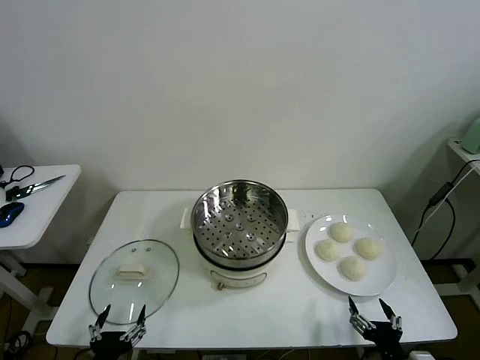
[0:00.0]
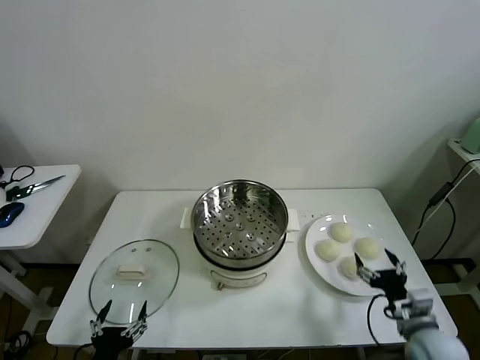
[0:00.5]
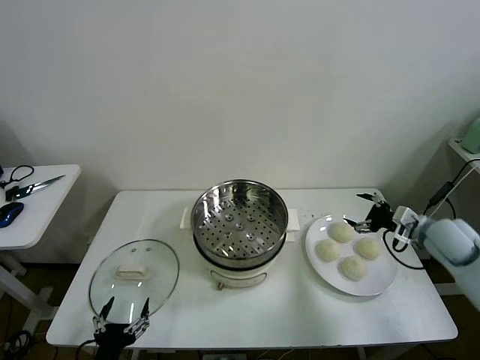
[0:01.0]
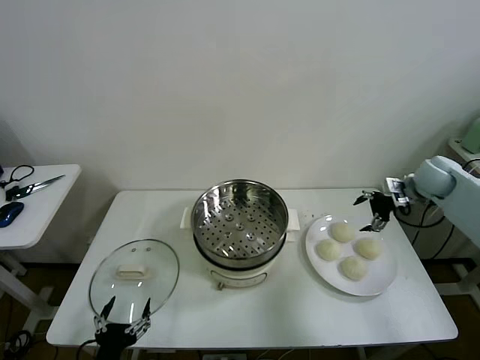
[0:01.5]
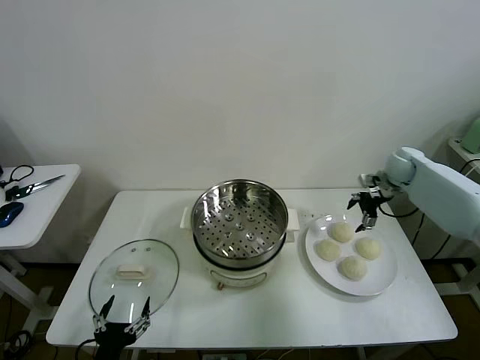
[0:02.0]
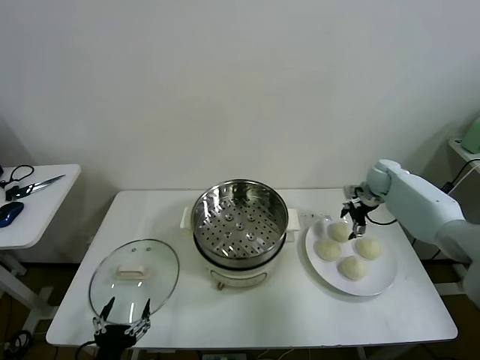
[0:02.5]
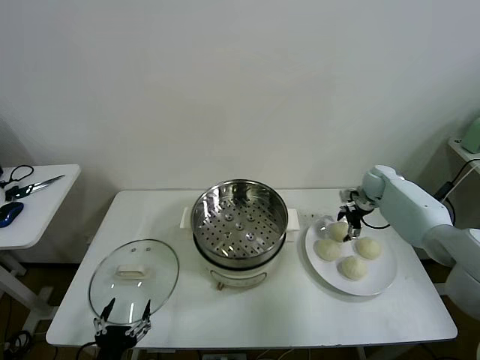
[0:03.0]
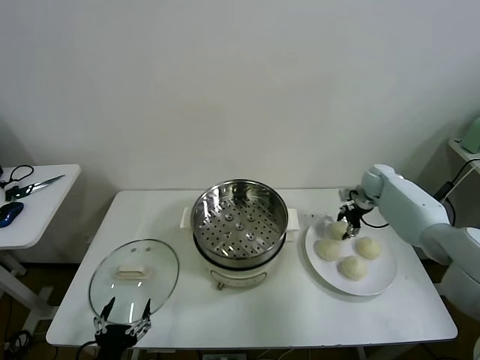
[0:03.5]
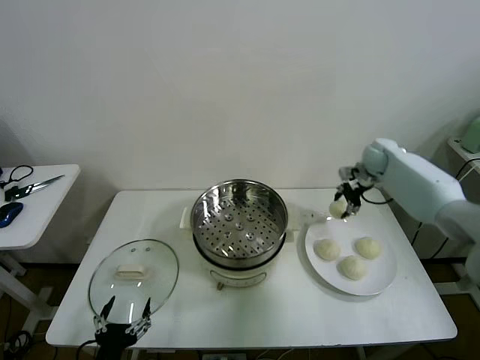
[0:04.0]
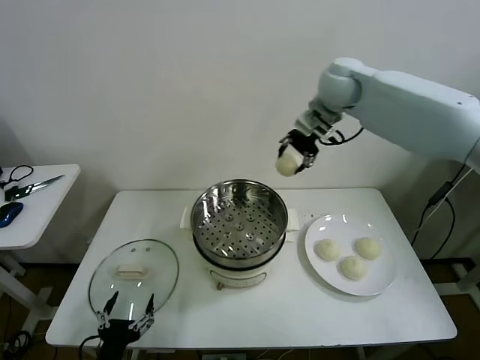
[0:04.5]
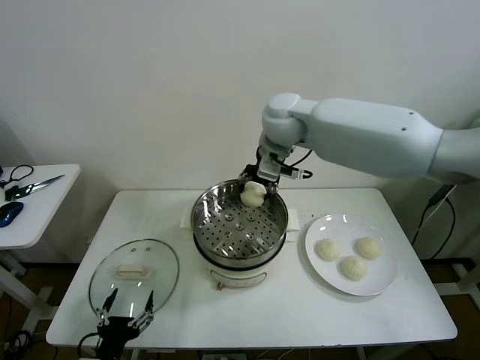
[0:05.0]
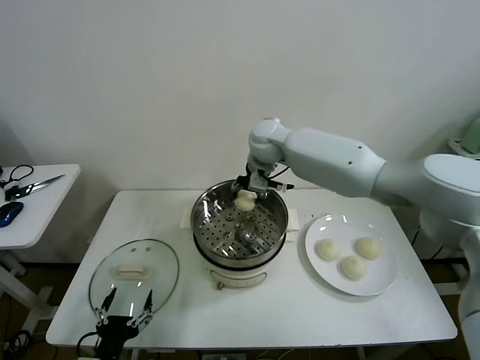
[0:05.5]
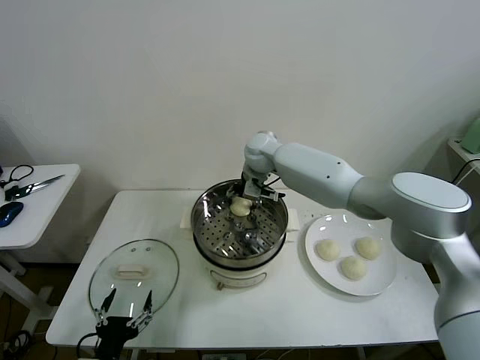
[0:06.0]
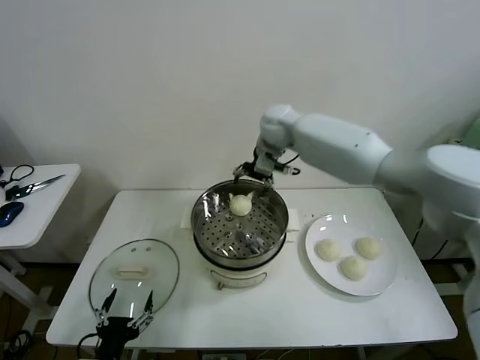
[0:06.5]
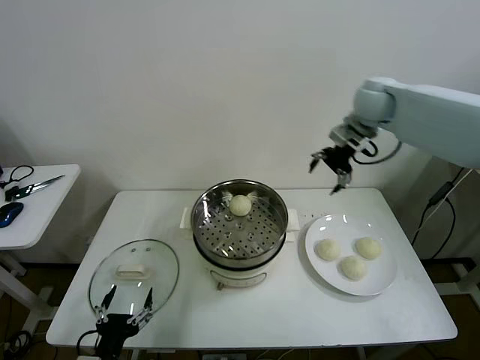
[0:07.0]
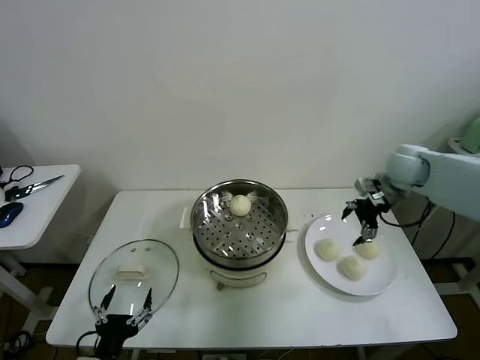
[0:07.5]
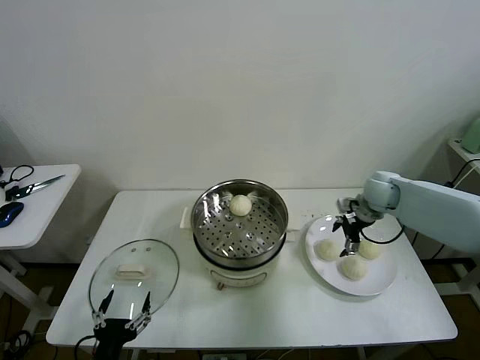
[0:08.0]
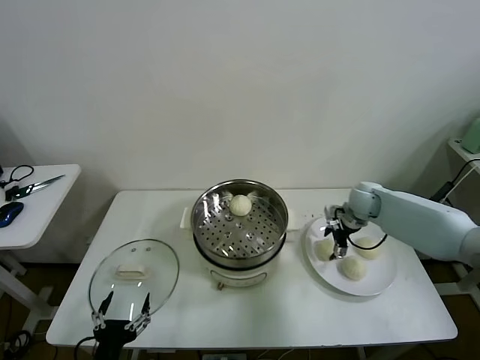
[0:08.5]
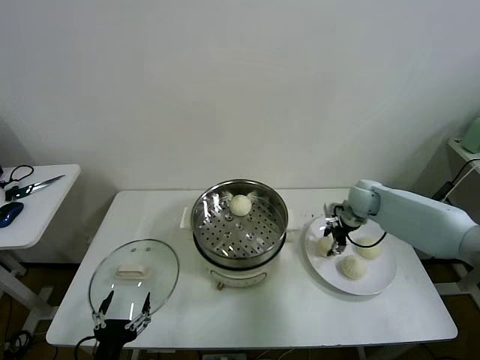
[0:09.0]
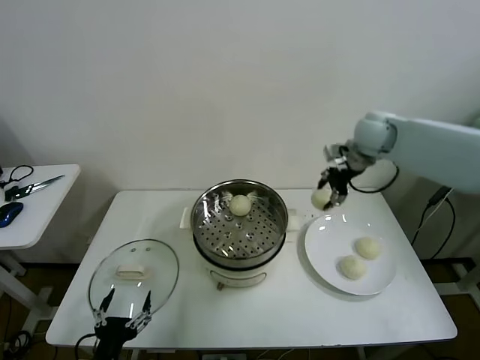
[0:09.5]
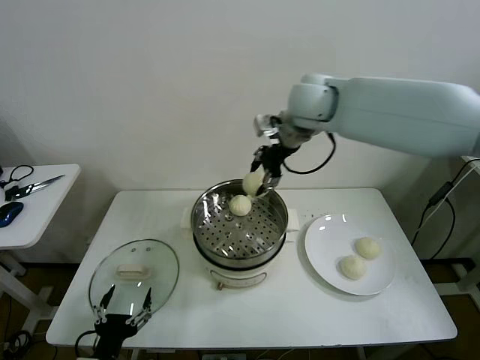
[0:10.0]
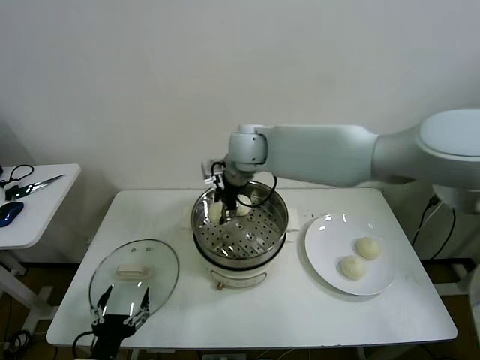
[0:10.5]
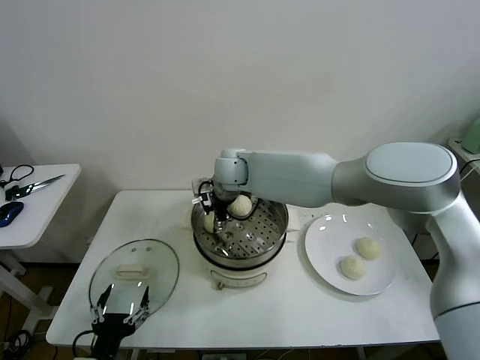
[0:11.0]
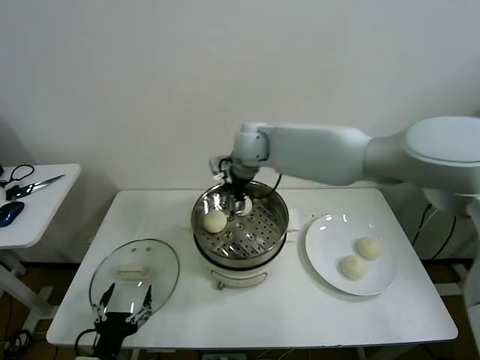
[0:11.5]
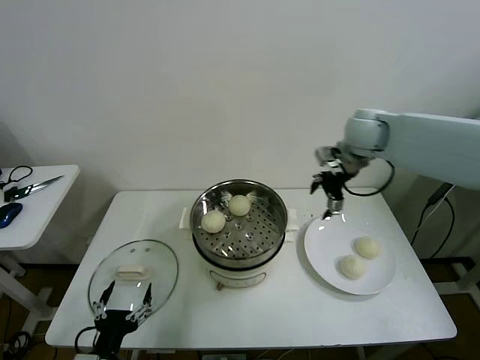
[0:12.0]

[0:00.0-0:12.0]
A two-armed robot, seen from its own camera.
Task of the whole recording: take steamed baozi put them in steamer then cover it.
Step, 0:00.0 to 0:03.0: Grasp the baozi in the plate with right gripper.
Step, 0:03.5 to 0:06.0: Place the baozi on the steamer with right gripper.
Step, 0:06.5 to 0:08.5: Grasp the baozi in the plate with right gripper.
Step, 0:09.0 to 0:11.0: Place the baozi on the steamer with right gripper.
0:02.0 to 0:04.0: The right gripper goes some 10 cm upward and to the left, and closes up.
0:04.0 to 0:06.0: The right gripper heads to the left, covering approximately 30 cm, and opens up.
0:06.0 to 0:08.0: The right gripper moves to the right, about 30 cm.
0:08.0 to 0:10.0: The right gripper shifts roughly 35 cm to the left and upward, and closes.
0:10.0 to 0:12.0: The right gripper is displaced to the right by approximately 20 cm, and opens its fingers.

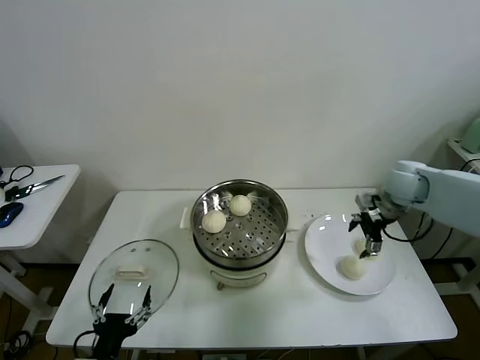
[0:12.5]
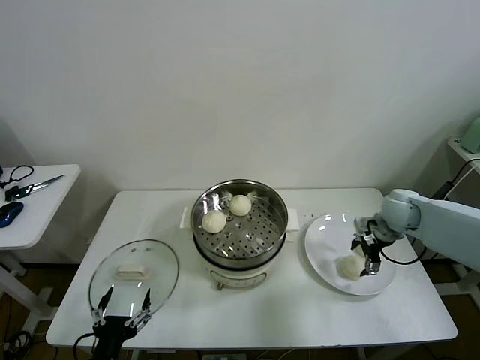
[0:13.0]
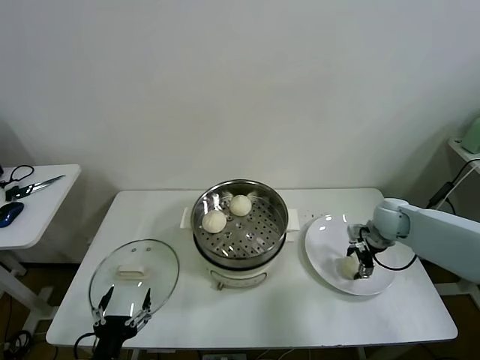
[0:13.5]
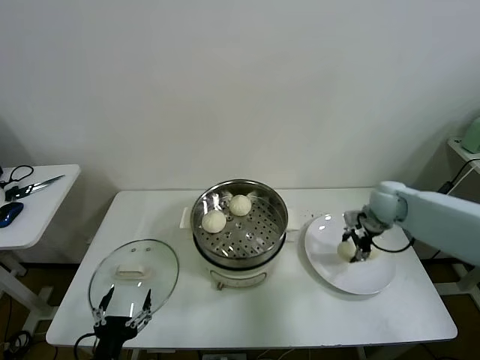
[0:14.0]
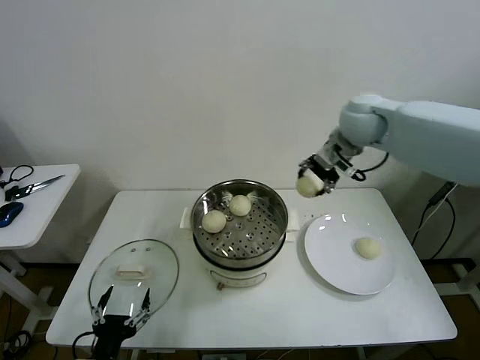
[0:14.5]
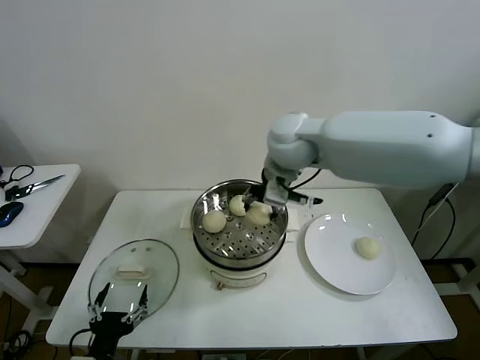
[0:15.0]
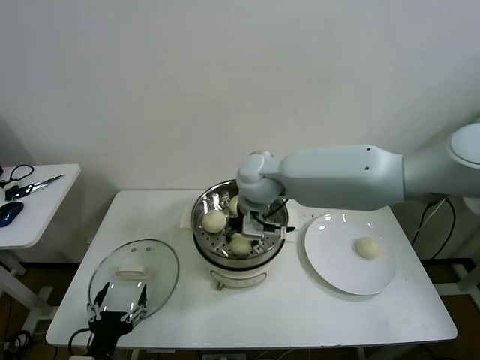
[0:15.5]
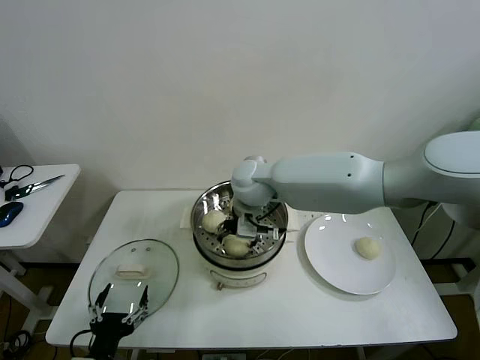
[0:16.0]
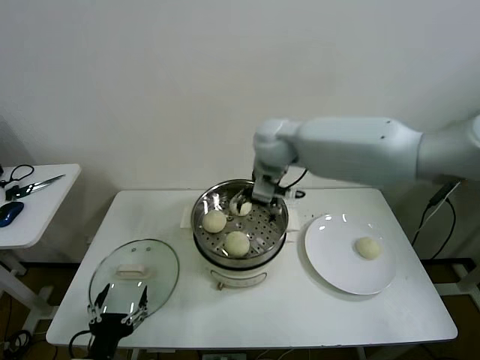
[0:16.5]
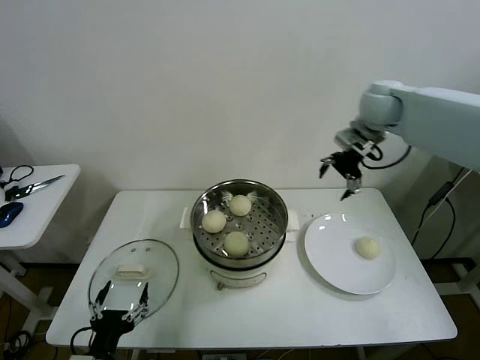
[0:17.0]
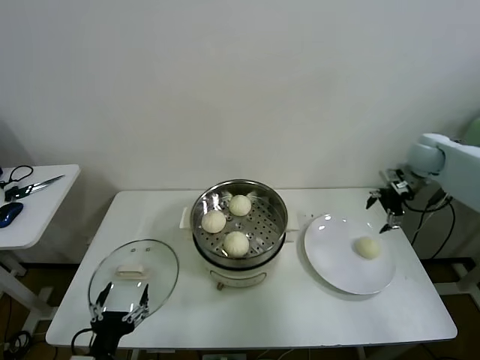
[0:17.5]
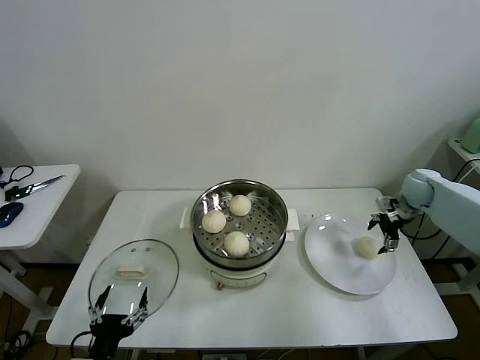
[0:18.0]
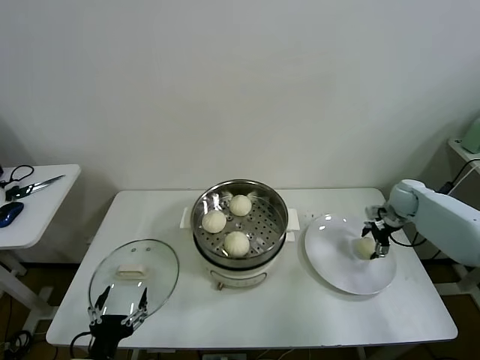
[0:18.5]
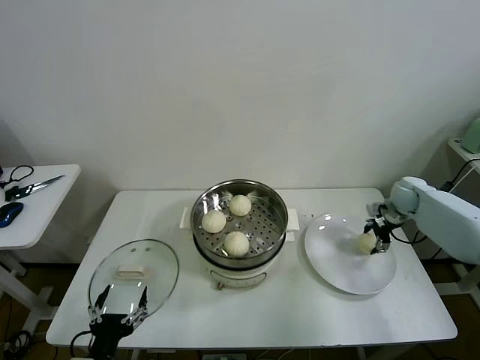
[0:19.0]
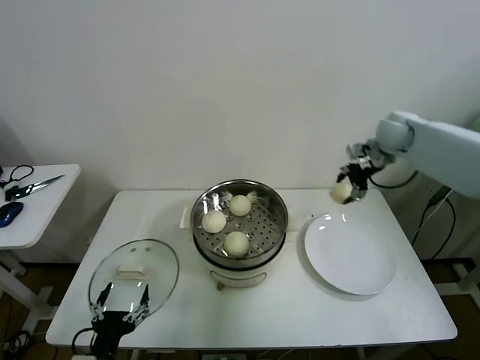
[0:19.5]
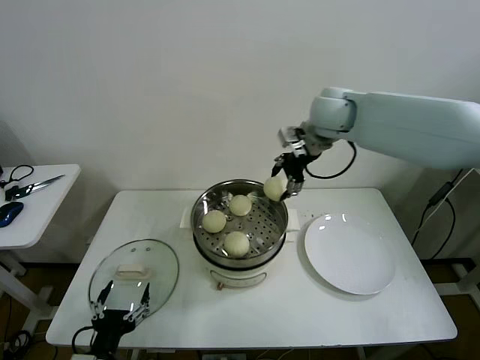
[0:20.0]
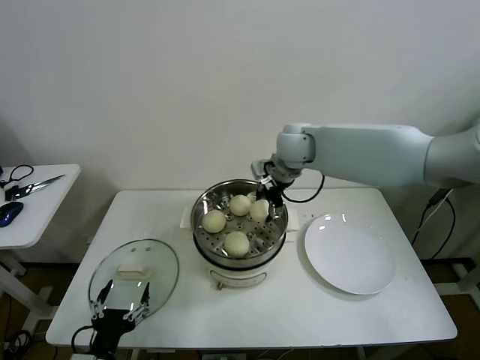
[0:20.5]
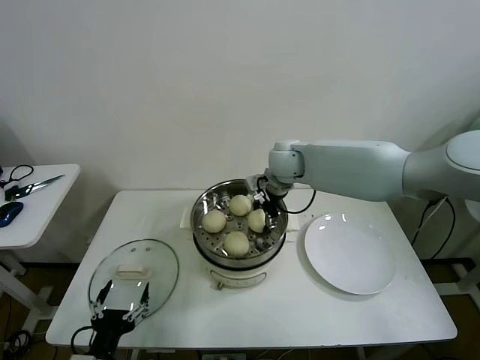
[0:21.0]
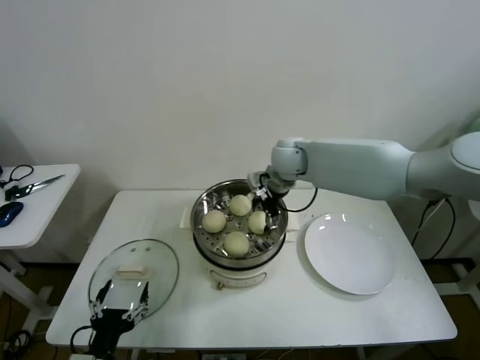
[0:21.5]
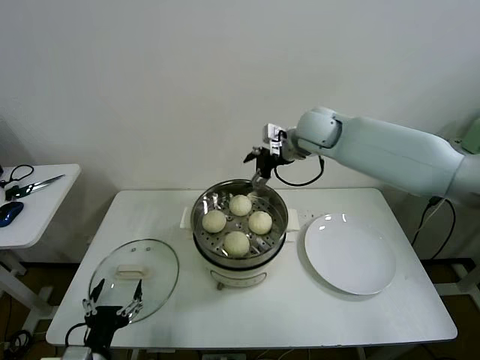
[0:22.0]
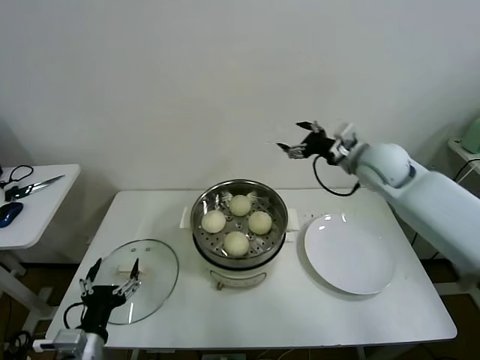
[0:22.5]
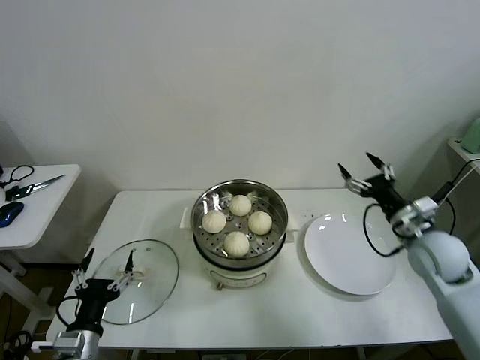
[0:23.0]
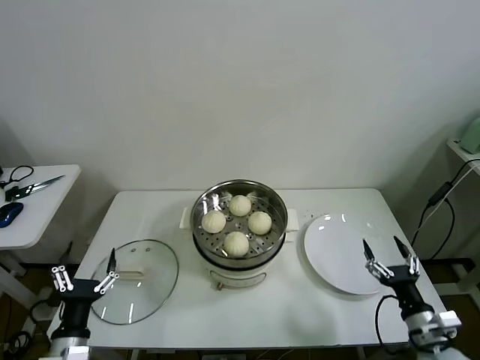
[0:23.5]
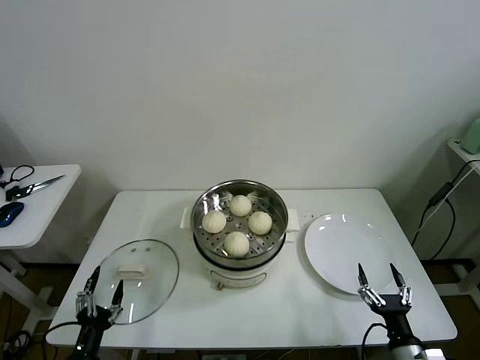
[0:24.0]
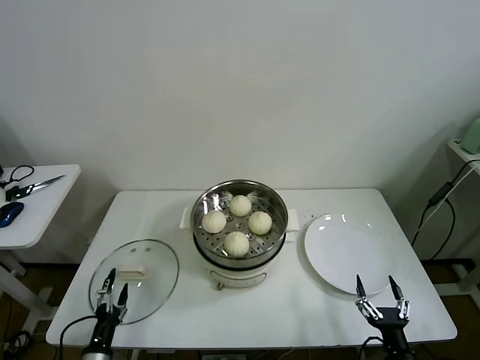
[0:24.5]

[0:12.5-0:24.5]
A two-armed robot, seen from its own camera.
Task of the whole recording: take steamed baozi put them in steamer then cover it.
Step, 0:14.0 to 0:15.5: Place the baozi on the steamer with right gripper.
Step, 0:16.0 to 0:18.5: Grasp the baozi in the plate with right gripper.
Step, 0:19.0 to 0:21.0: Place the baozi on the steamer with right gripper.
0:12.5 to 0:14.5: The right gripper shifts approximately 25 cm upward and to the left, and closes its fingers.
0:14.5 to 0:16.5: The right gripper heads to the left, covering roughly 15 cm, and opens its fingers.
0:16.5 to 0:18.5: The right gripper heads to the right and downward, covering about 40 cm.
0:18.5 to 0:20.5: The right gripper shifts about 40 cm to the left and upward, and closes its fingers.
0:20.5 to 0:22.5: The right gripper shifts approximately 15 cm to the right, and opens.
0:22.5 to 0:24.5: The left gripper travels downward by some 15 cm; the right gripper is displaced backward and downward by roughly 50 cm.

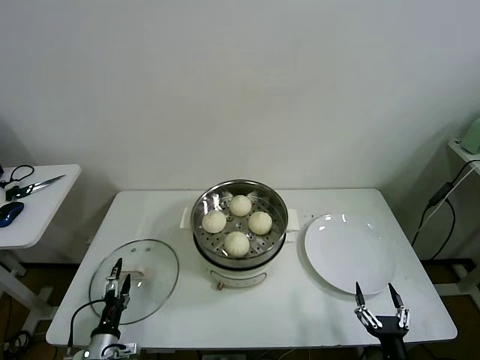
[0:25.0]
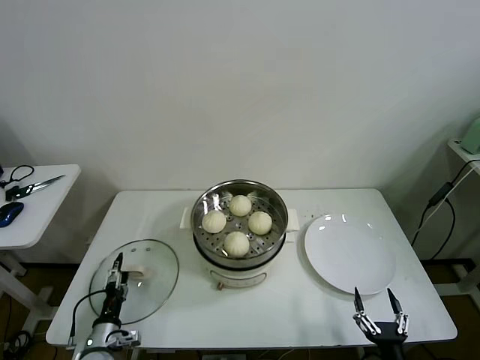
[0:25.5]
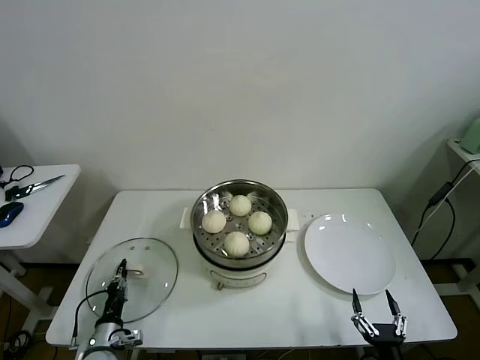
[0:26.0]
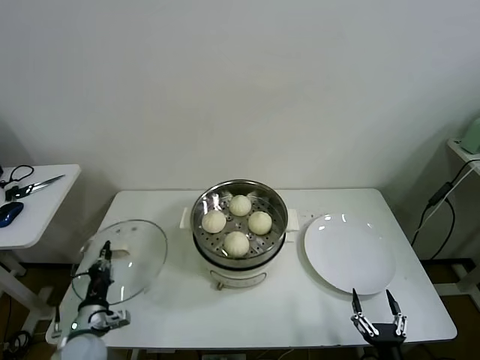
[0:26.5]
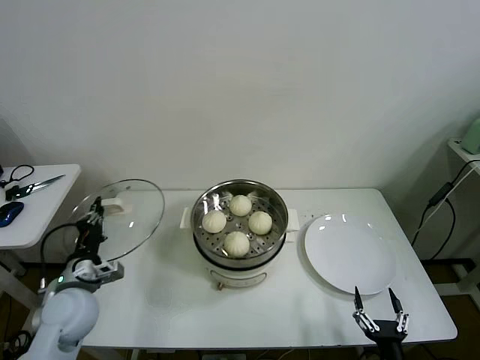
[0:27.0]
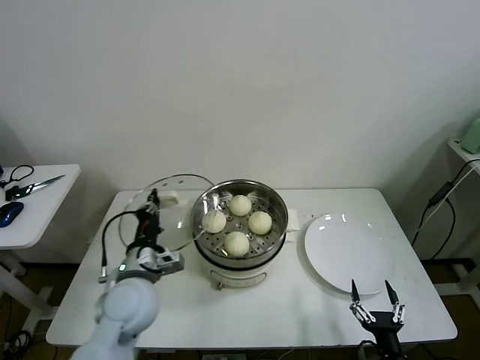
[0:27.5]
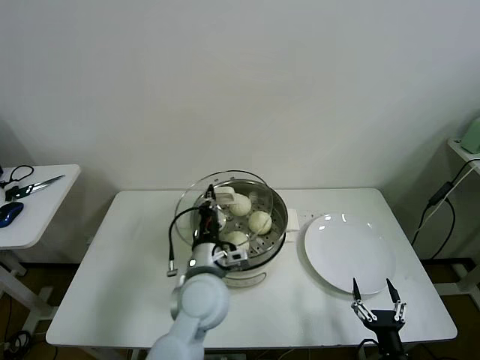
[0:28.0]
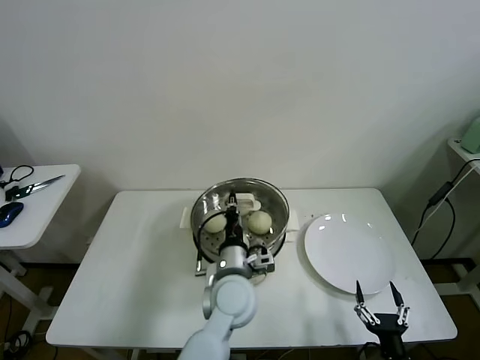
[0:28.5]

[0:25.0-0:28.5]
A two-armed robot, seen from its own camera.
Task of the whole recording: take steamed baozi put them in steamer then cover it.
0:25.0 to 0:27.0: The left gripper goes some 20 cm upward and forward, and closes up.
0:27.0 to 0:28.5: The left gripper moves to the right, some 35 cm.
